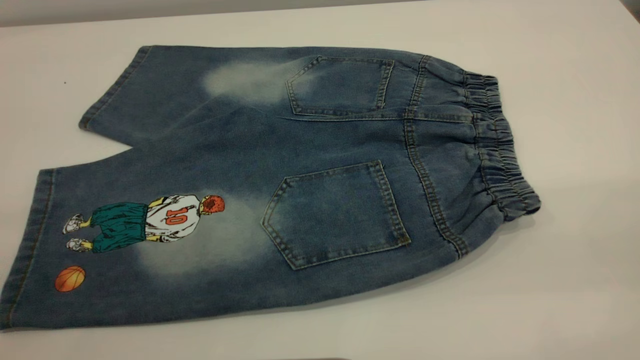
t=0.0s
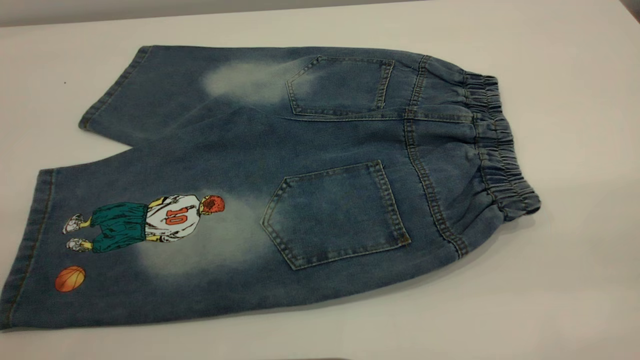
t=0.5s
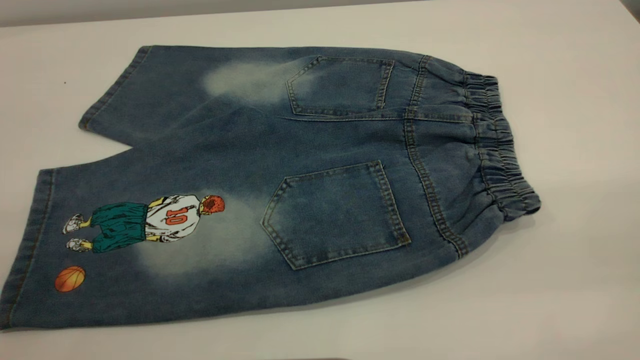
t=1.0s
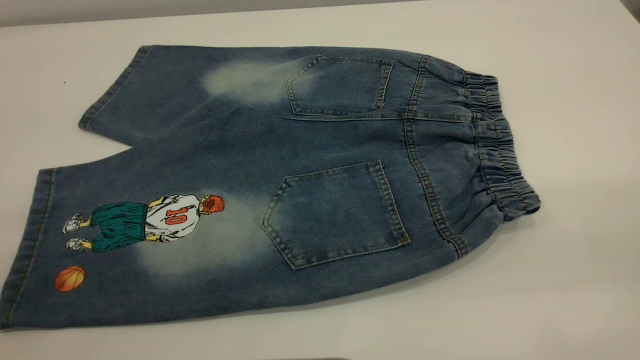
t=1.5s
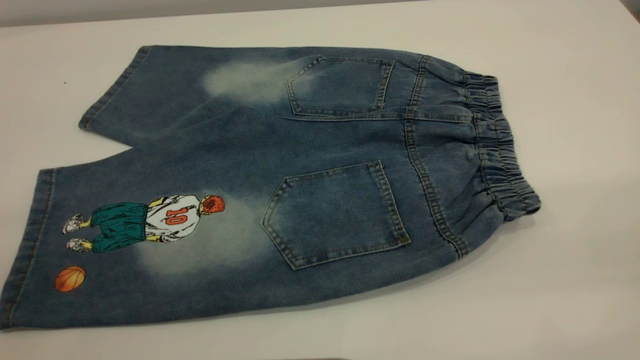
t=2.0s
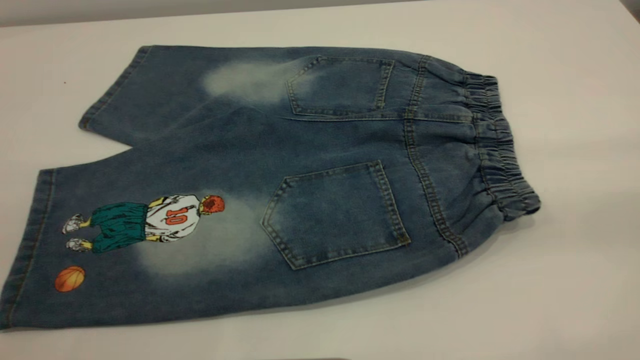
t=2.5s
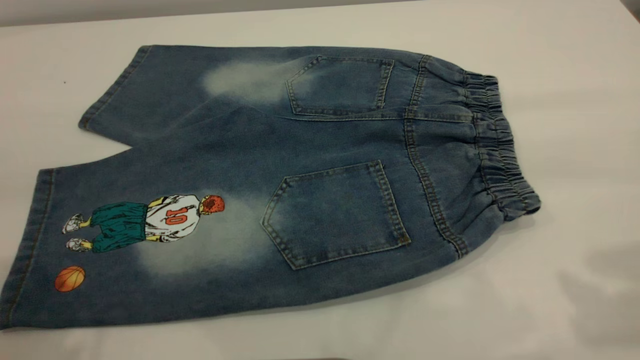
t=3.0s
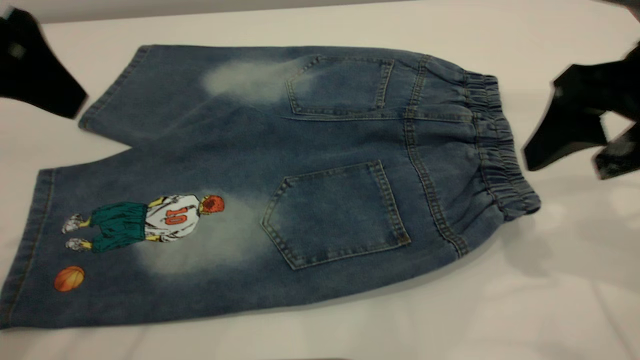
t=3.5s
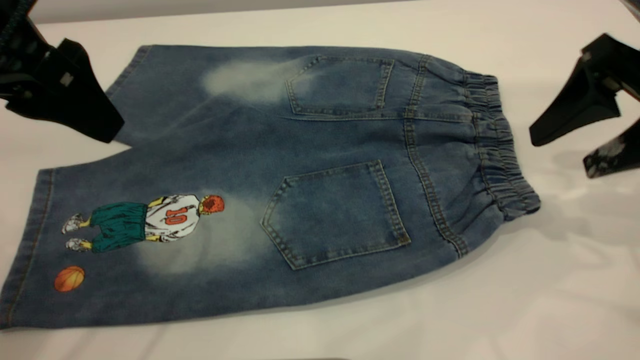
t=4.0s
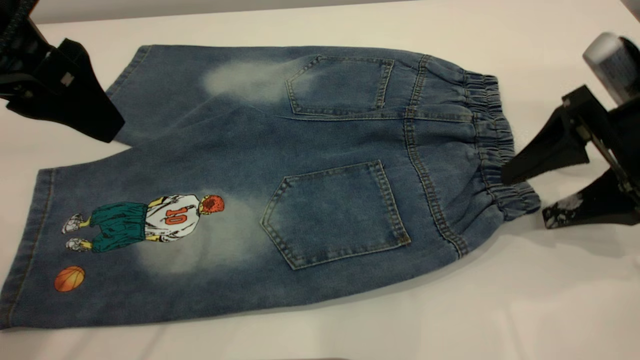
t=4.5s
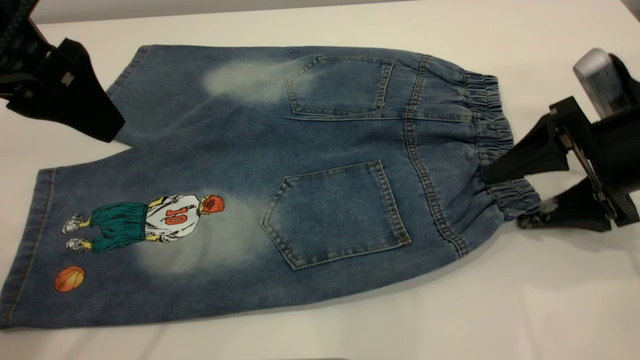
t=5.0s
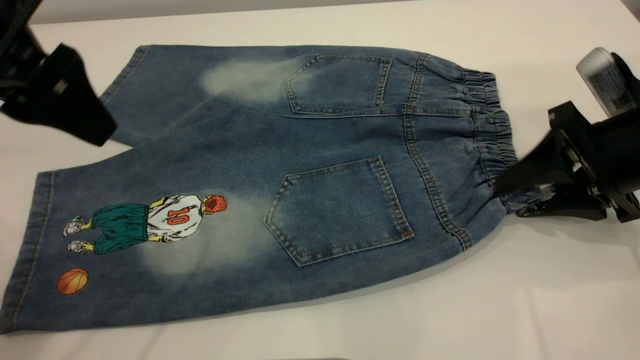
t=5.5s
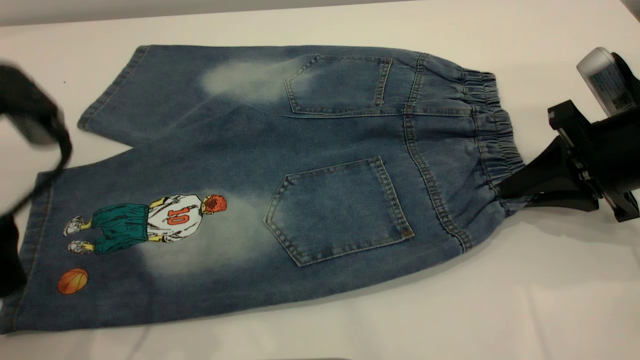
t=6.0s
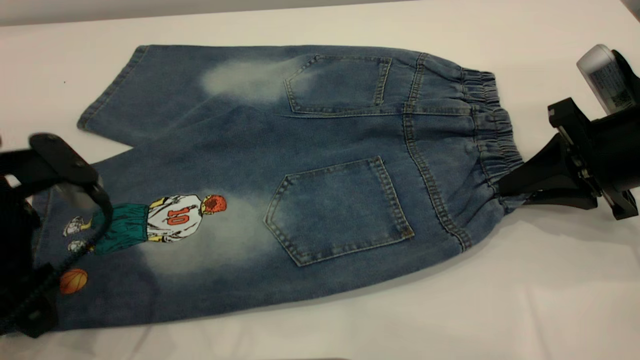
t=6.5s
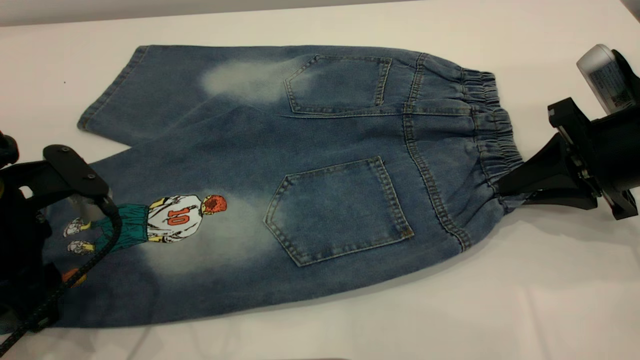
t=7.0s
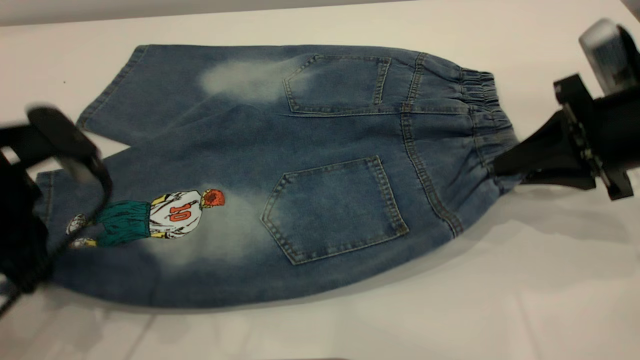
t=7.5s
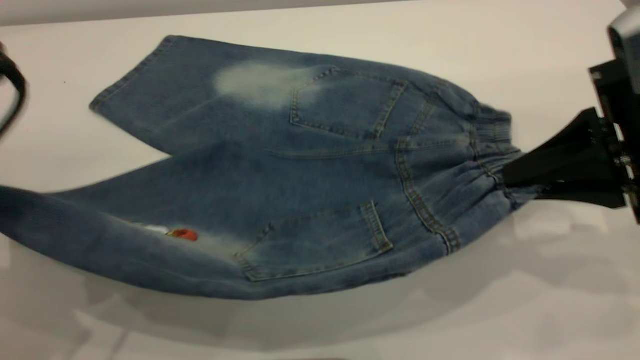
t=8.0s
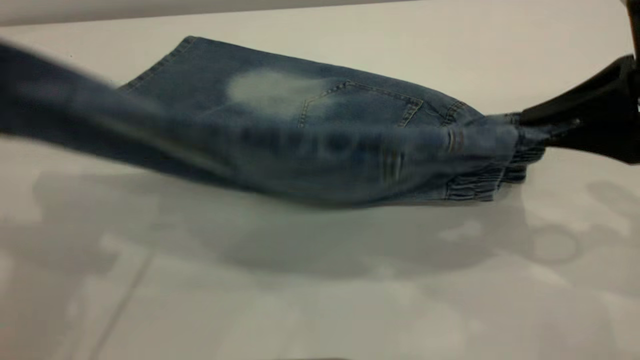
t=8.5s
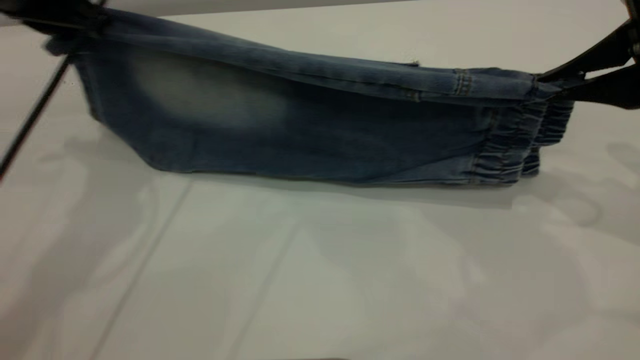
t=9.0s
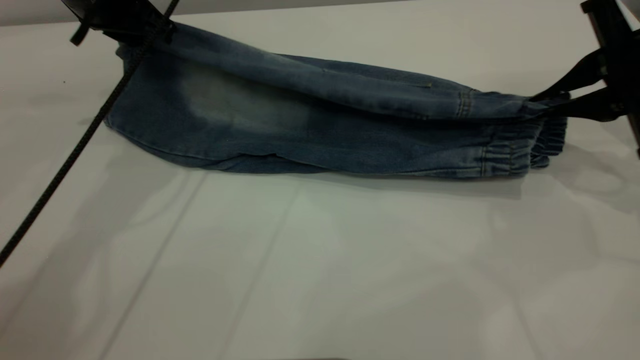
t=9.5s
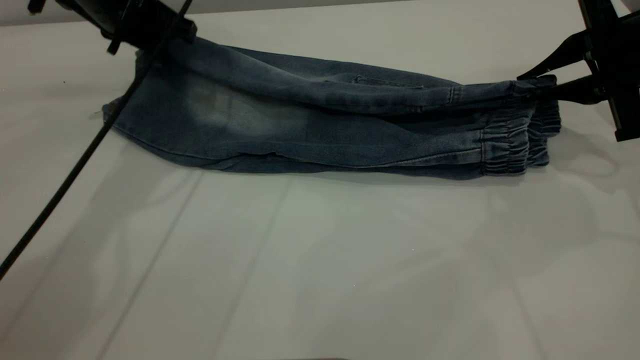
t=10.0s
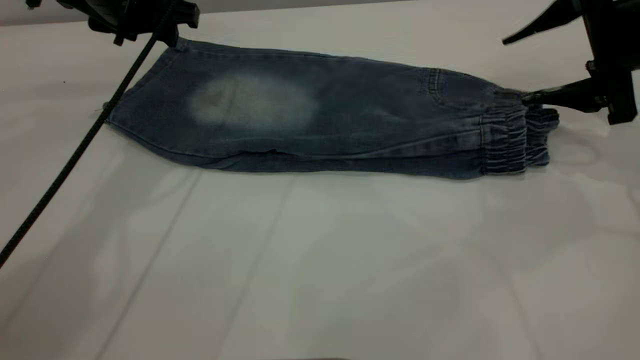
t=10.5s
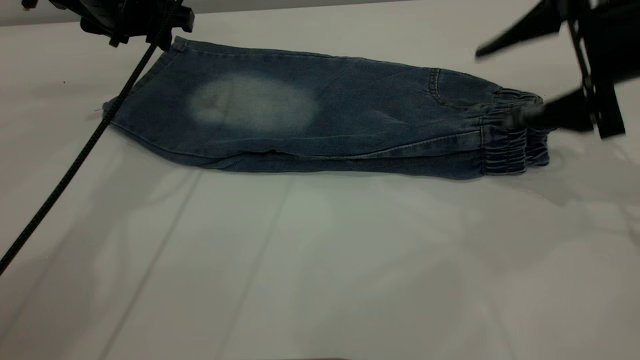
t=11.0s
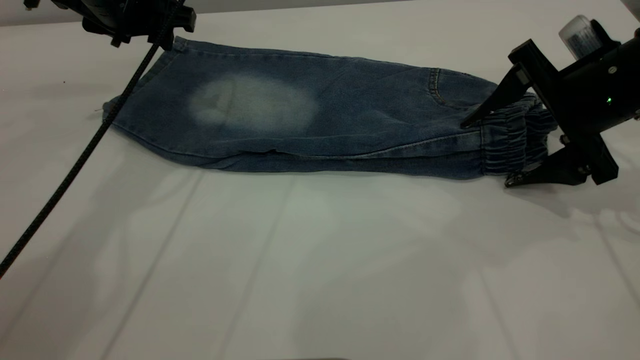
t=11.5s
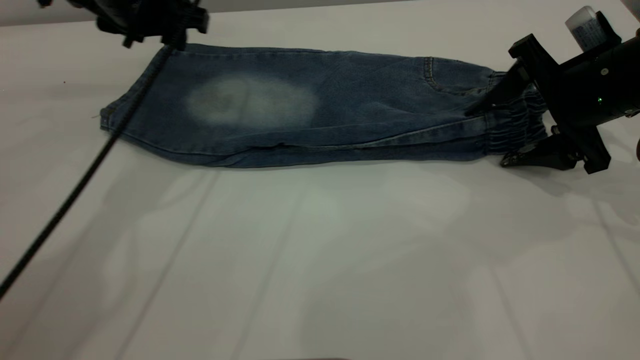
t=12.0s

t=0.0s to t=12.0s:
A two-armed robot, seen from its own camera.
Step, t=0.0s to t=10.5s: Fold the bottom of the pants upward.
t=0.0s to t=2.0s: Neither gripper changes place.
t=2.0s to t=4.0s: The right gripper is displaced forward and downward by approximately 35 cm. Meanwhile the left gripper goes approximately 25 cm forward.
t=4.0s to t=6.0s: Both grippers travel together downward, approximately 10 cm. The right gripper closes up.
t=6.0s to t=8.0s: The left gripper closes up, while the right gripper travels upward and backward by some 10 cm.
t=8.0s to t=10.0s: The right gripper moves forward, about 10 cm, while the left gripper moves forward, about 25 cm.
t=10.0s to t=12.0s: The left gripper opens up. The right gripper opens up.

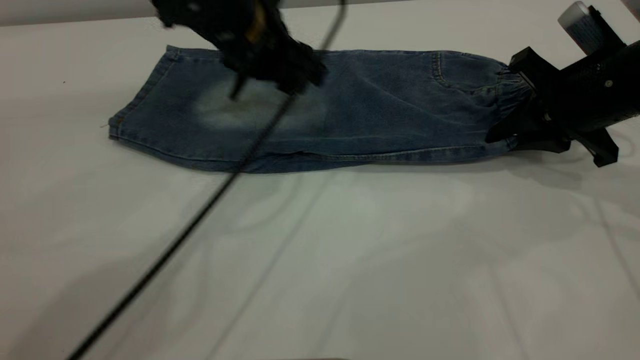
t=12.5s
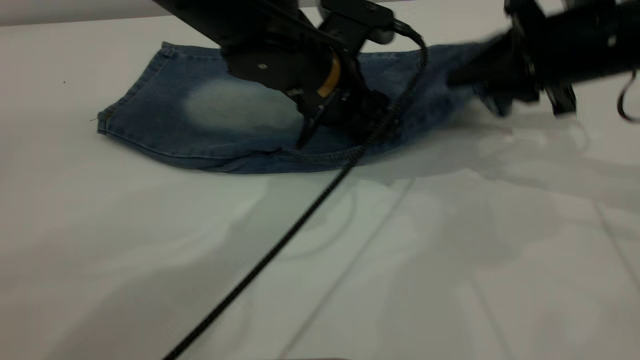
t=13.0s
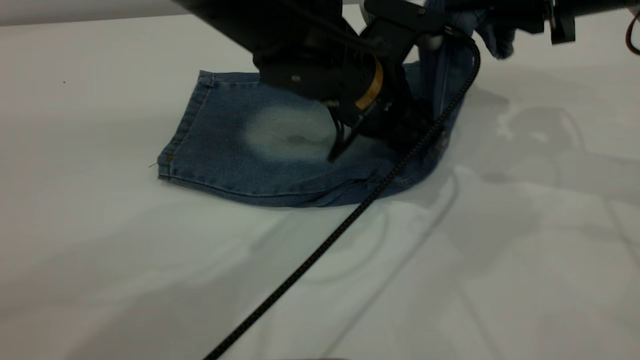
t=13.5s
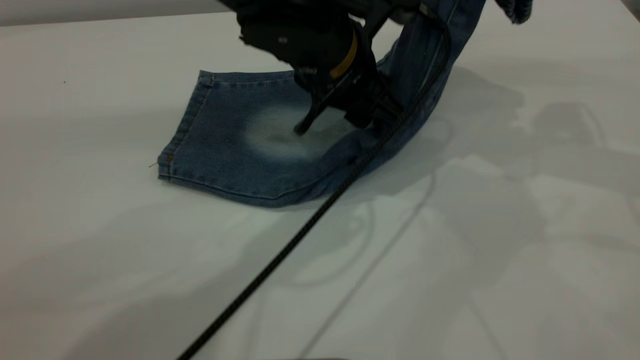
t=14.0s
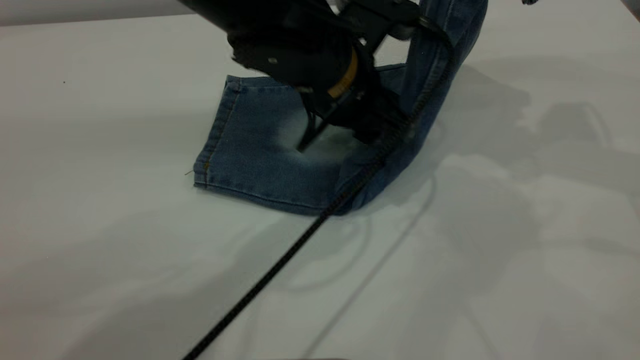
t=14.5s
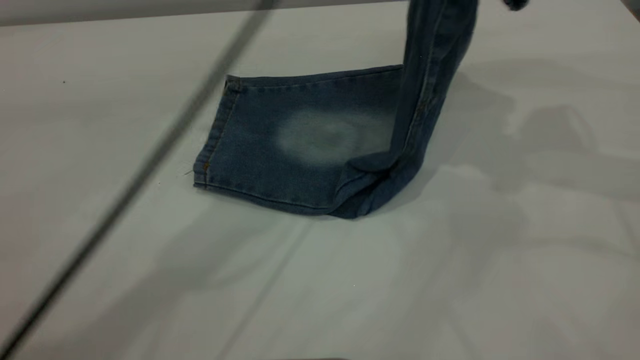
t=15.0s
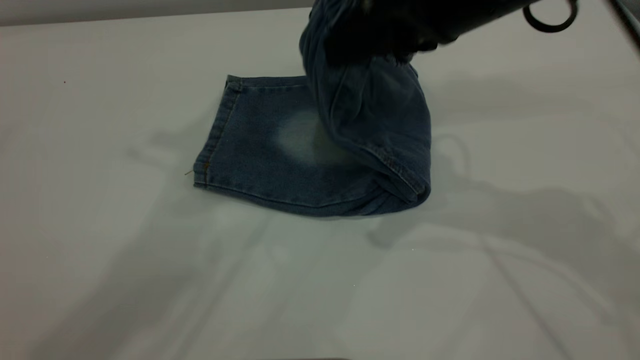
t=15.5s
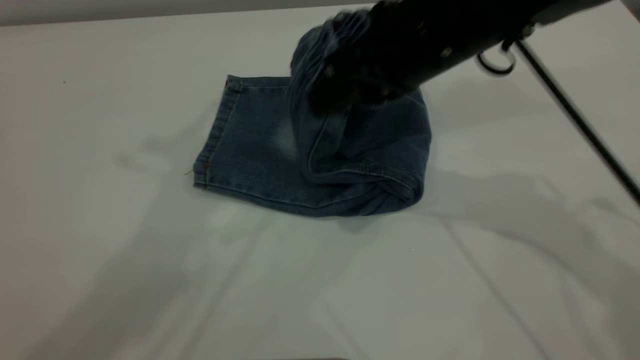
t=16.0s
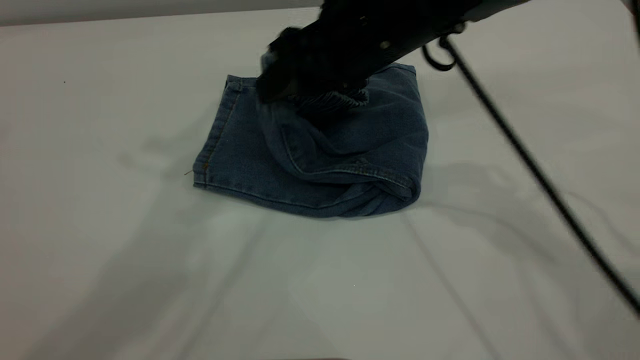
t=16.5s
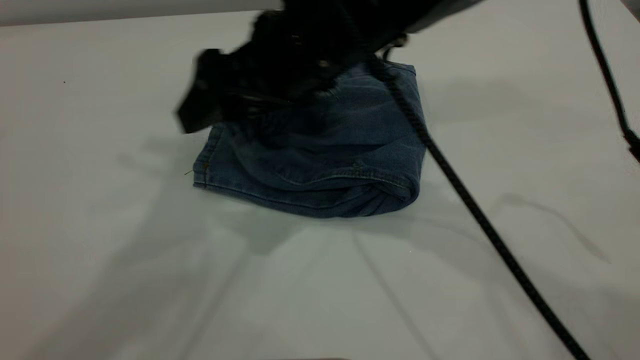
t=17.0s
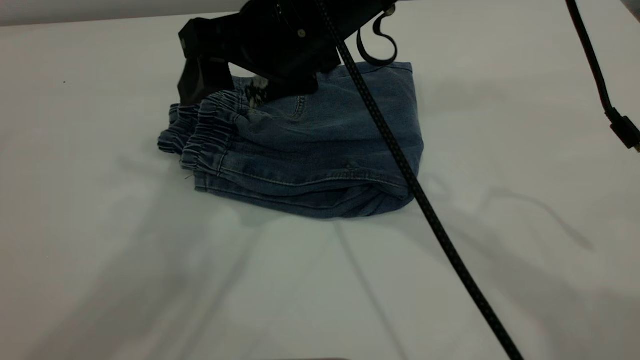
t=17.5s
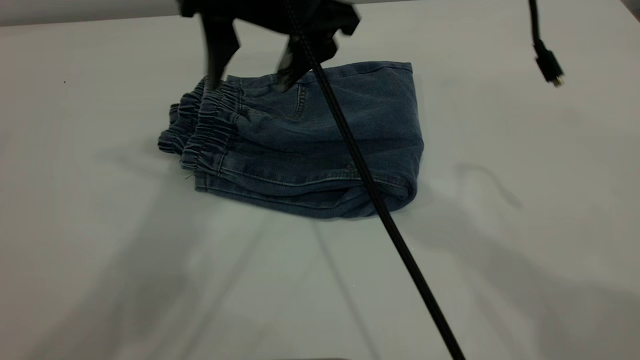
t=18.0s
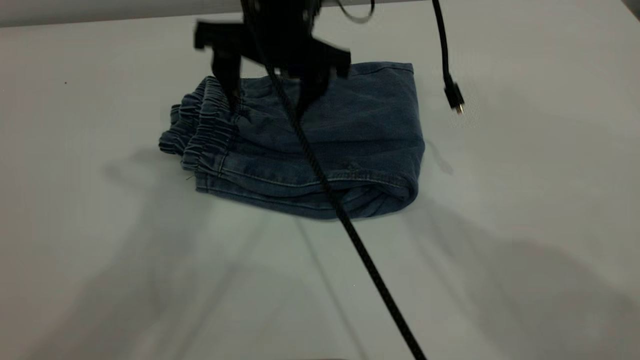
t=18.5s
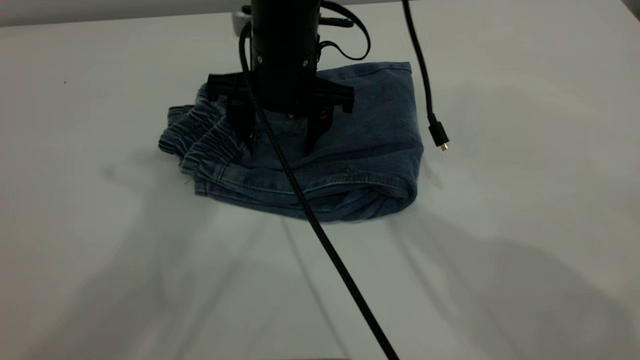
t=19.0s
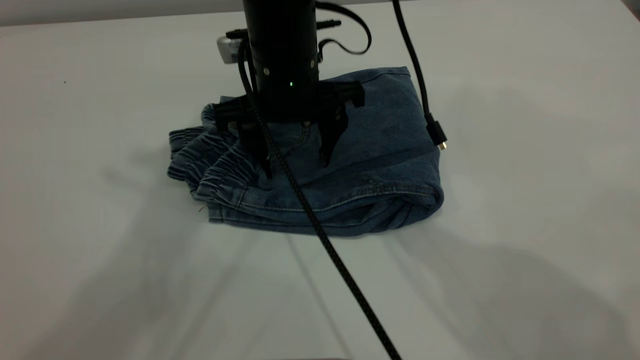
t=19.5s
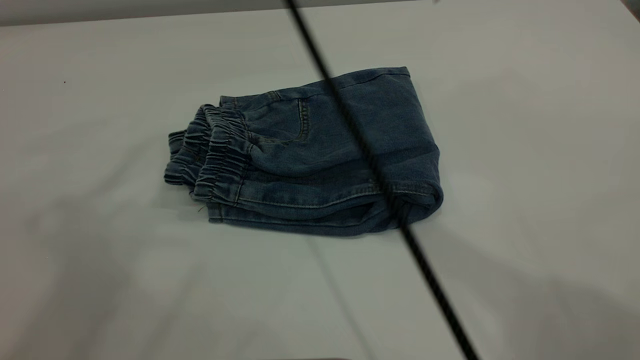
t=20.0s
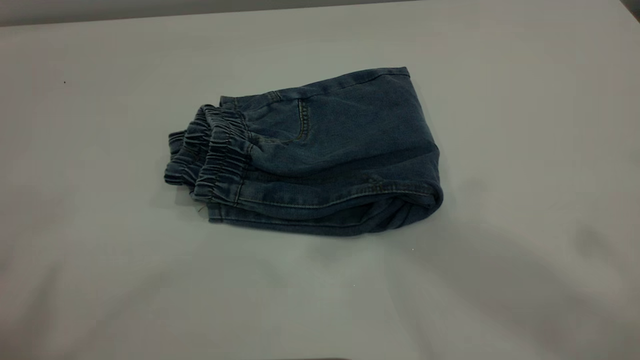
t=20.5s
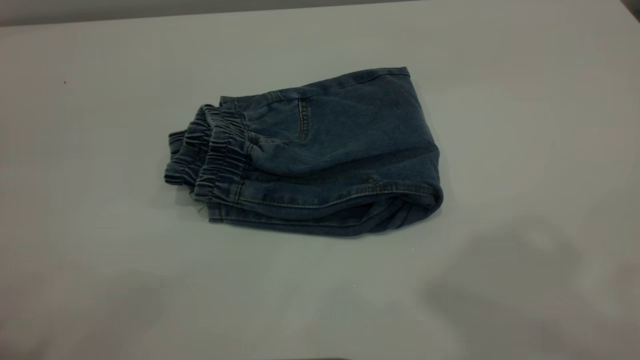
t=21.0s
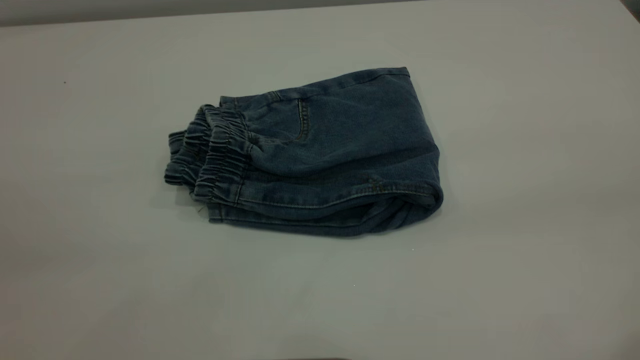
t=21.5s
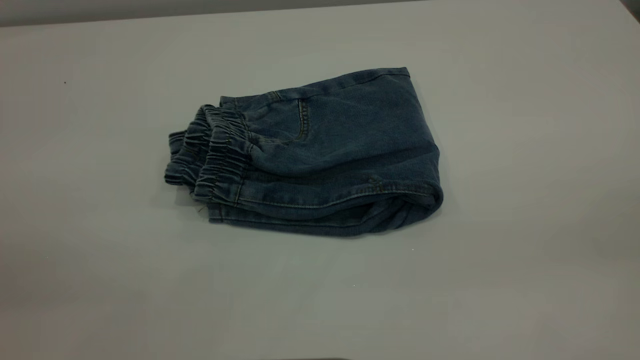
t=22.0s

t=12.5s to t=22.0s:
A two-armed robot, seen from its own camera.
Step, t=12.5s to t=17.0s: Fold your pants from right to left.
t=12.5s to t=14.5s: The left gripper travels backward and to the right by some 10 cm. The right gripper shifts about 15 cm upward.
t=14.5s to t=16.5s: The left gripper moves upward and to the left, some 35 cm. Meanwhile the right gripper moves to the left, about 20 cm, and opens.
t=16.5s to t=18.0s: The right gripper shifts some 10 cm upward and to the left.
t=18.0s to t=20.0s: The left gripper travels upward, backward and to the left by some 15 cm; the right gripper travels upward by roughly 10 cm.
t=20.0s to t=22.0s: The right gripper heads backward and to the right, covering roughly 40 cm; the left gripper goes about 30 cm downward, backward and to the left.
